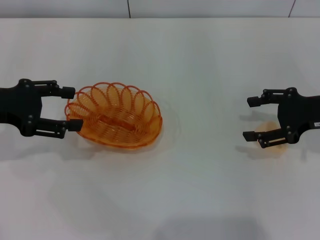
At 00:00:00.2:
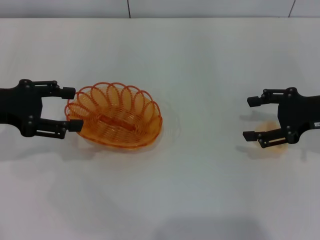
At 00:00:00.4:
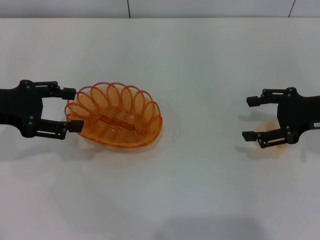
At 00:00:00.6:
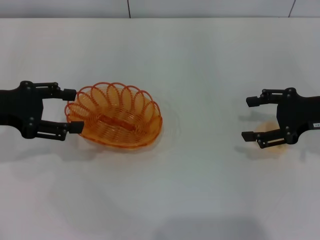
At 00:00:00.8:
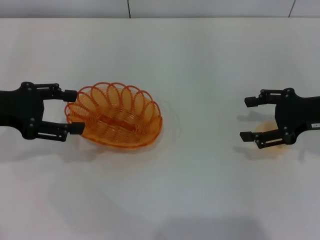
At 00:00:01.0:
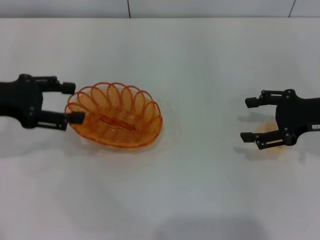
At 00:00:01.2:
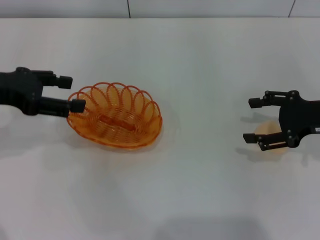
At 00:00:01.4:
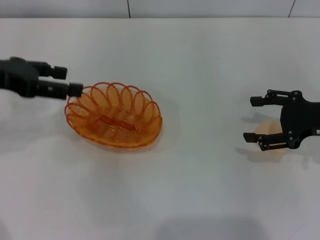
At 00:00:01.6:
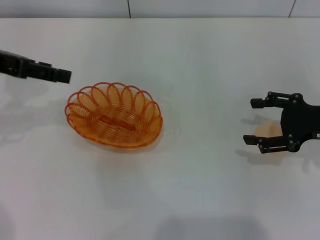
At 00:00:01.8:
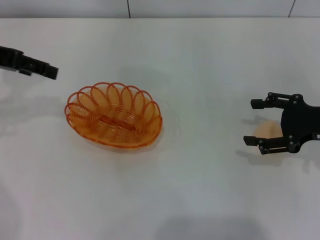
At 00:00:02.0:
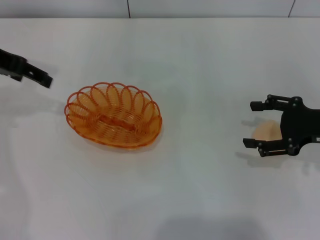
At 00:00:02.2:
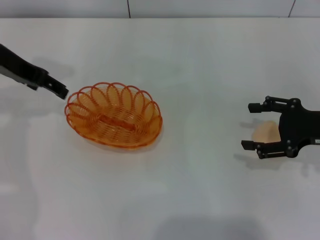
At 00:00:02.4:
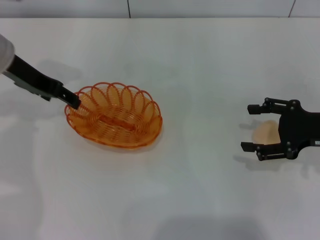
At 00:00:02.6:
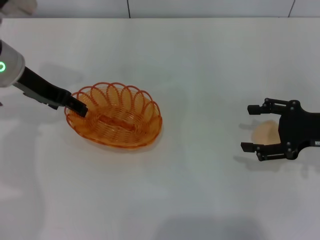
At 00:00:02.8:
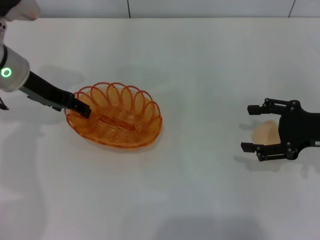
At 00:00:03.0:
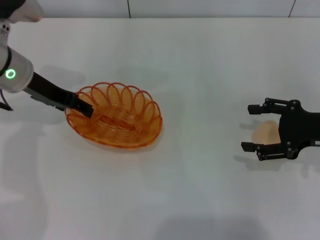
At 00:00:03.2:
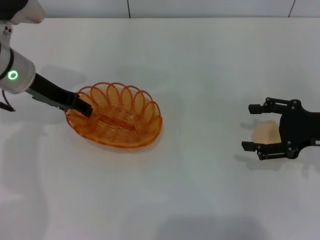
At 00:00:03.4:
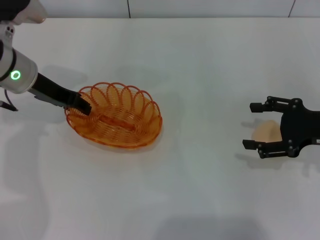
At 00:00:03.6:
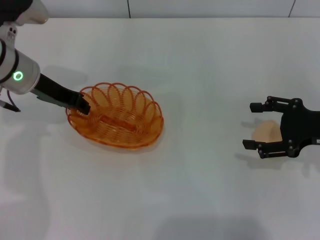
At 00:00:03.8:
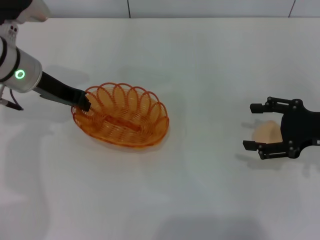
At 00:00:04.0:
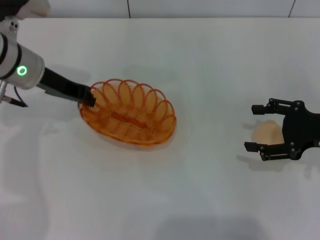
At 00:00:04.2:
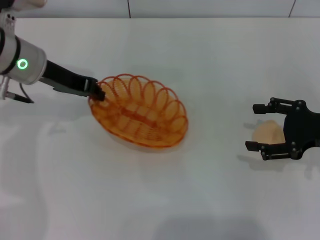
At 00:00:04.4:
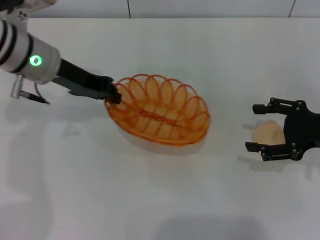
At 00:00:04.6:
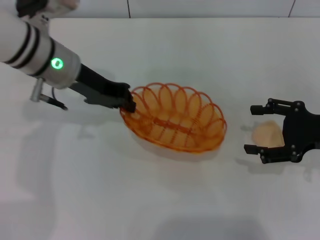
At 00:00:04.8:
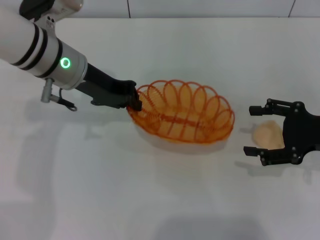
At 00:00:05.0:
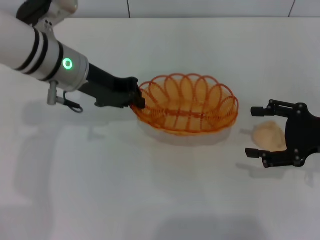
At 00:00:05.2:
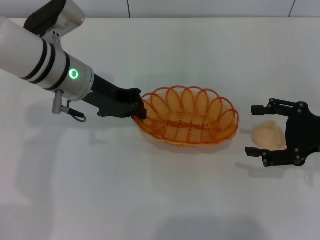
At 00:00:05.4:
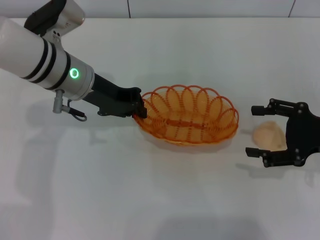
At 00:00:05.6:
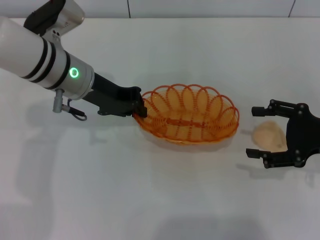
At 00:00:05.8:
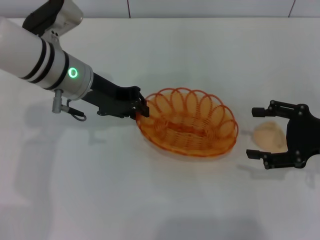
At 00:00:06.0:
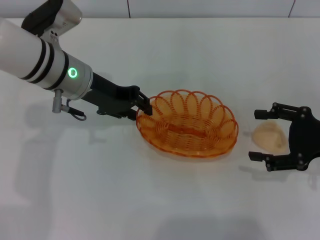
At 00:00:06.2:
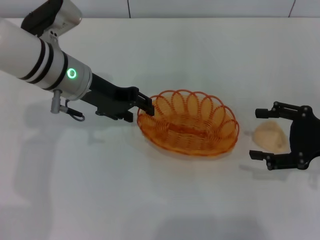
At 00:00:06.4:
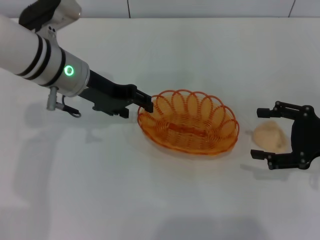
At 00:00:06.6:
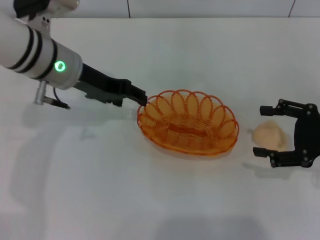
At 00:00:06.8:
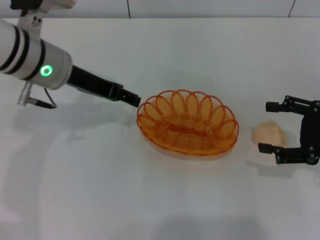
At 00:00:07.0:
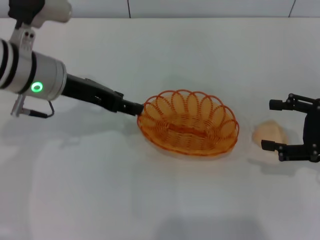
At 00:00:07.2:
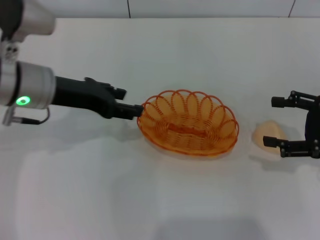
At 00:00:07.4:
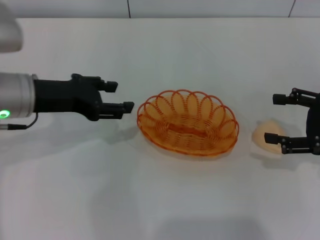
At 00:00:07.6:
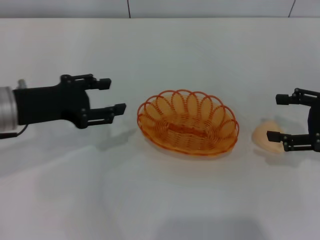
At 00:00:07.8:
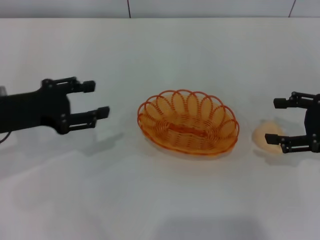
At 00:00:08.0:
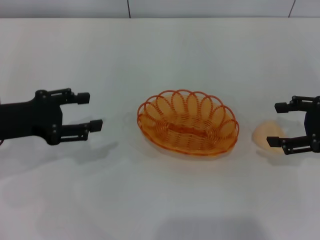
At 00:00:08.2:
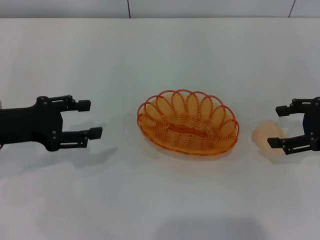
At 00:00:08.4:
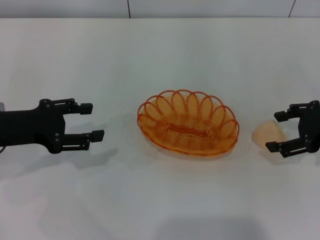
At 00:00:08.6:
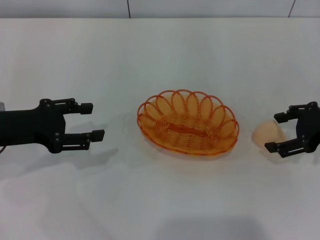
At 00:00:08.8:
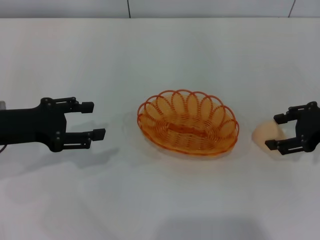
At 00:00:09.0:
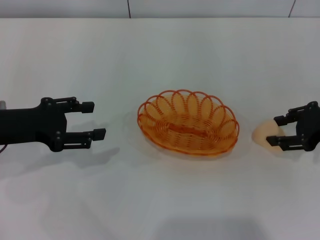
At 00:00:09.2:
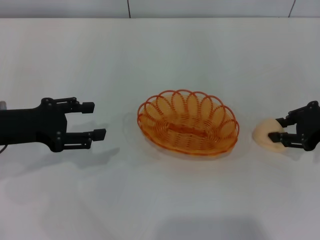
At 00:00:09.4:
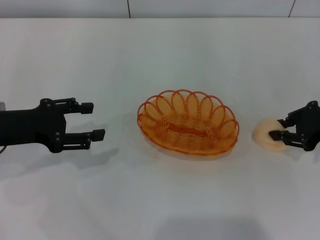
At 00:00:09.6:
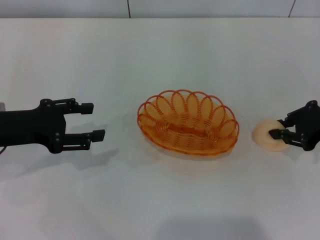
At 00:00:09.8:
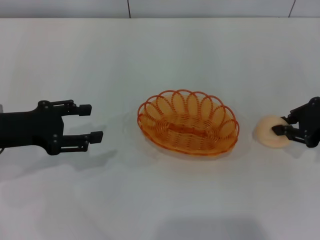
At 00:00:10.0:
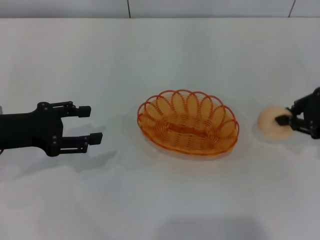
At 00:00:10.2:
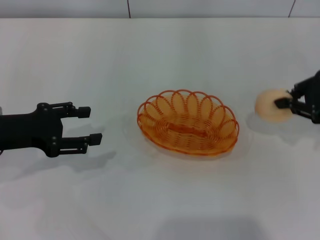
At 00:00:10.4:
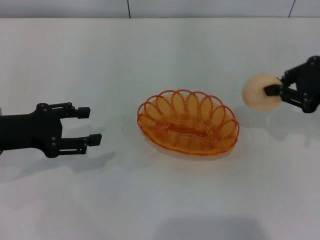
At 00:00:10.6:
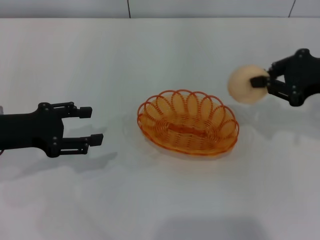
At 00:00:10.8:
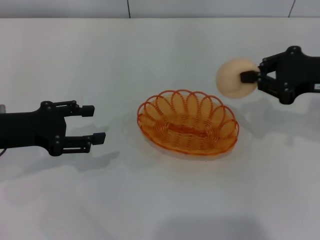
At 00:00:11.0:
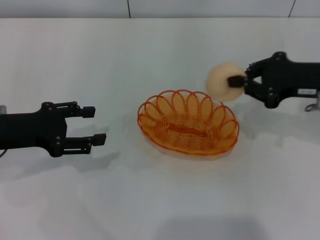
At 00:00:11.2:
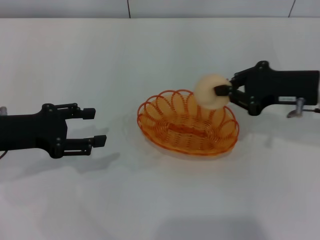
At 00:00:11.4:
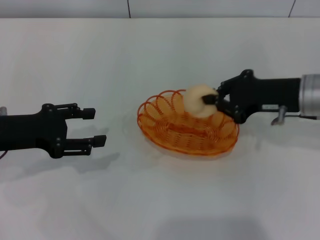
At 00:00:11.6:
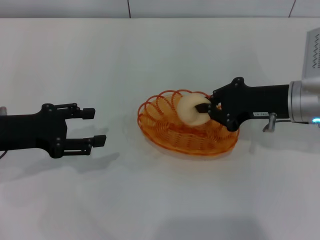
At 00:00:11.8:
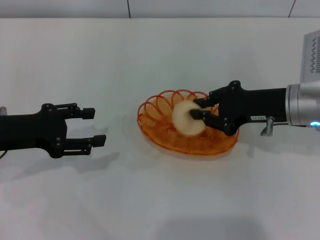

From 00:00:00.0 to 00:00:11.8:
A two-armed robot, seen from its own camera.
Step, from 00:00:00.0 to 00:00:04.6: Pick up the basket with the left gripper.
Step, from 00:00:05.0 to 00:00:06.8: Place the basket in the center of view with the left gripper.
Step, from 00:00:07.0 to 00:00:10.2: Pick up the egg yolk pastry with the right gripper.
From 00:00:00.0 to 00:00:01.4: The left gripper shifts roughly 5 cm upward.
From 00:00:01.4 to 00:00:03.0: The left gripper shifts approximately 10 cm to the right, forward and downward.
From 00:00:03.0 to 00:00:04.4: The left gripper closes up.
From 00:00:04.4 to 00:00:06.0: The grippers move only a little.
From 00:00:06.0 to 00:00:07.4: The left gripper is displaced to the left and backward by approximately 10 cm, and opens.
From 00:00:07.4 to 00:00:08.8: The left gripper moves to the left, about 5 cm.
From 00:00:08.8 to 00:00:10.4: The right gripper is displaced upward by roughly 5 cm, and closes its fingers.
From 00:00:10.4 to 00:00:11.8: The right gripper travels to the left and downward by some 10 cm.

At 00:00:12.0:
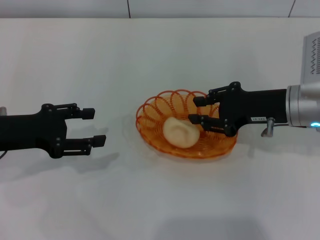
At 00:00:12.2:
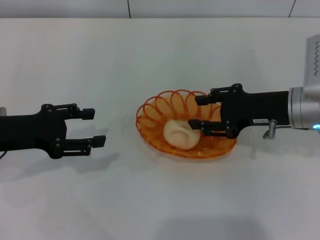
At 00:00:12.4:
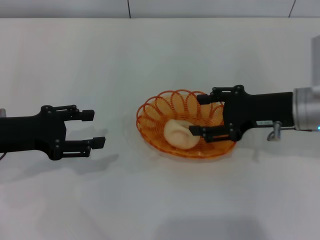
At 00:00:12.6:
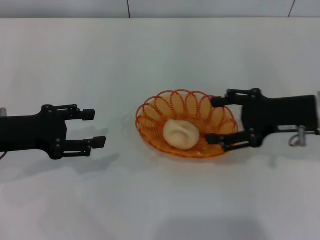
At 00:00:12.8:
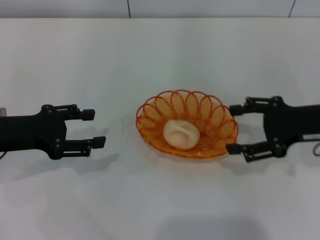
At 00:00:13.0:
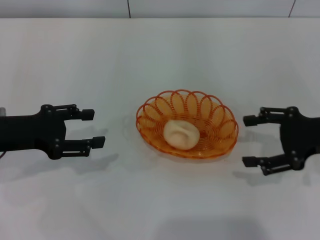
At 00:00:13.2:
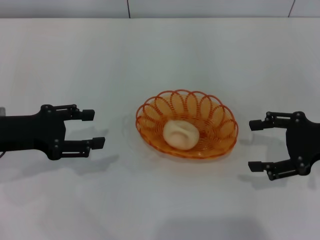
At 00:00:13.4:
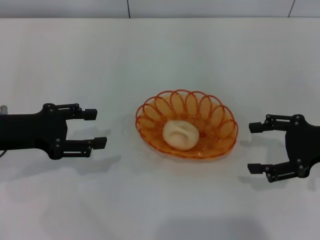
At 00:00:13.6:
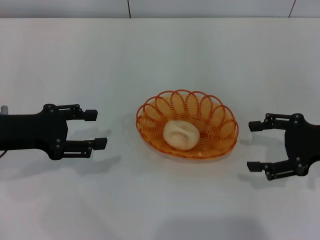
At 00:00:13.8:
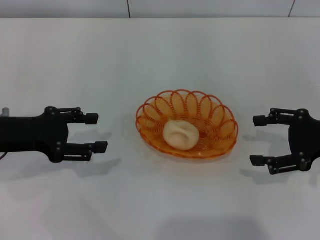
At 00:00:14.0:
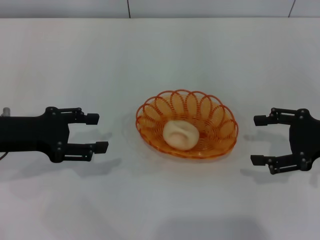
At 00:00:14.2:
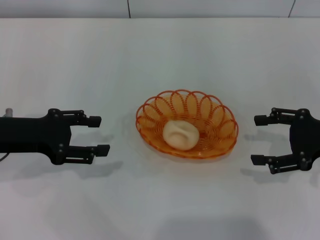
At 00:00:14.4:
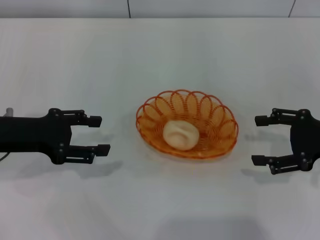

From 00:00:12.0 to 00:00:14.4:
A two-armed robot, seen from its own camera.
From 00:00:12.0 to 00:00:13.2: The right gripper heads to the right, covering approximately 10 cm, and opens its fingers.
From 00:00:13.2 to 00:00:14.4: The two grippers keep their place.
